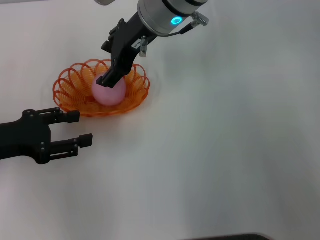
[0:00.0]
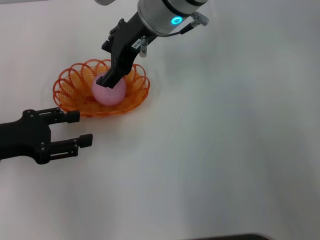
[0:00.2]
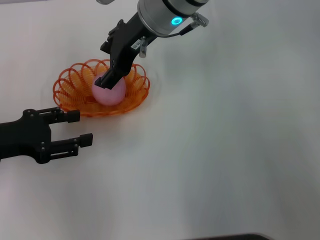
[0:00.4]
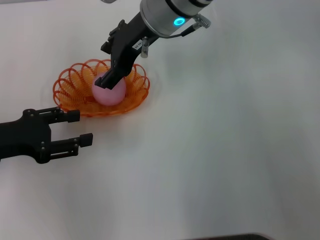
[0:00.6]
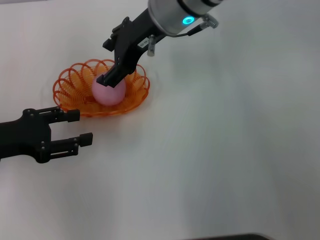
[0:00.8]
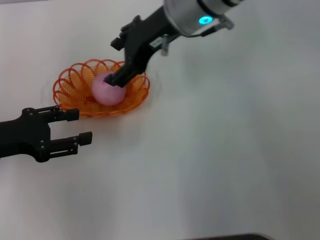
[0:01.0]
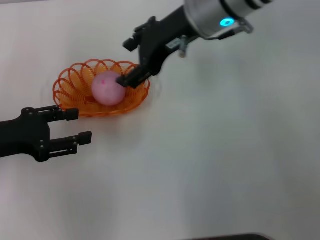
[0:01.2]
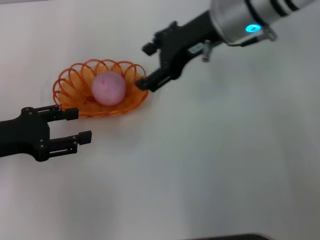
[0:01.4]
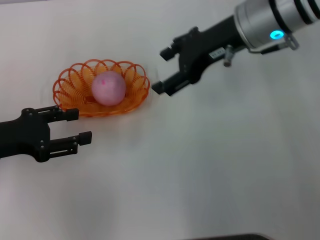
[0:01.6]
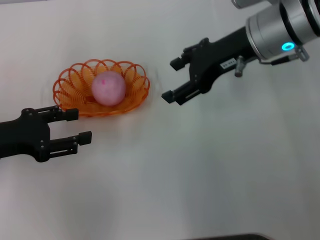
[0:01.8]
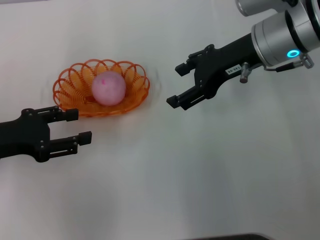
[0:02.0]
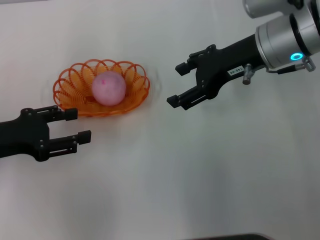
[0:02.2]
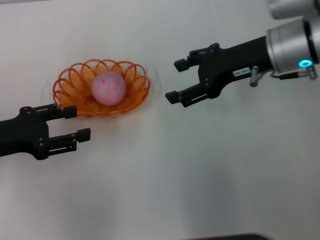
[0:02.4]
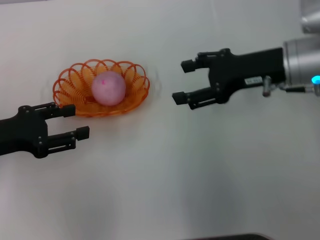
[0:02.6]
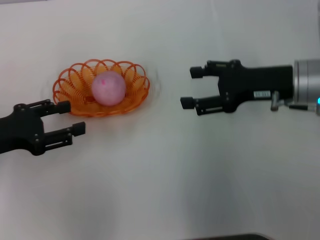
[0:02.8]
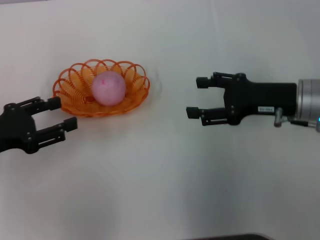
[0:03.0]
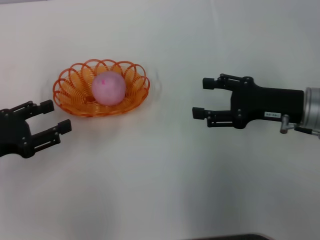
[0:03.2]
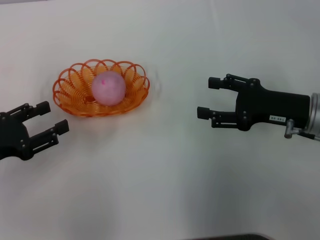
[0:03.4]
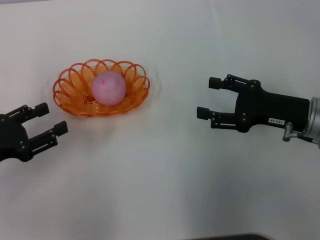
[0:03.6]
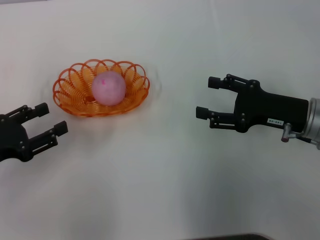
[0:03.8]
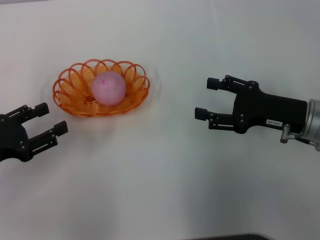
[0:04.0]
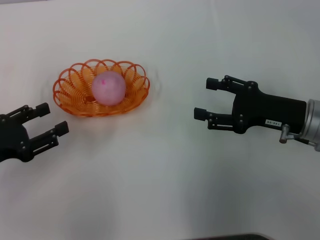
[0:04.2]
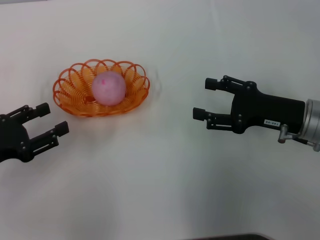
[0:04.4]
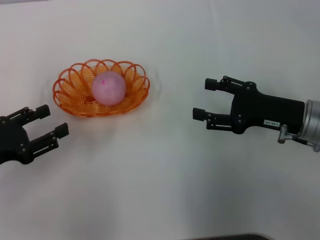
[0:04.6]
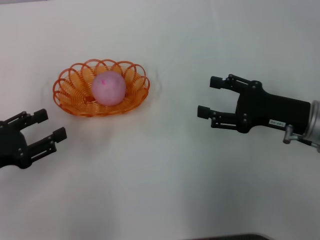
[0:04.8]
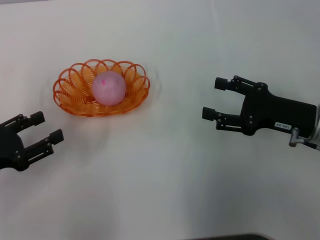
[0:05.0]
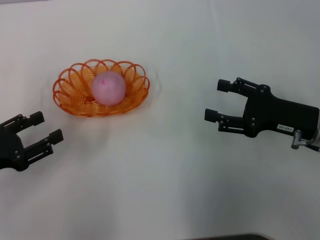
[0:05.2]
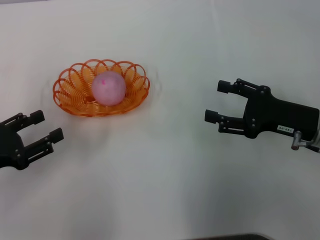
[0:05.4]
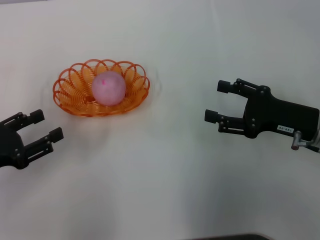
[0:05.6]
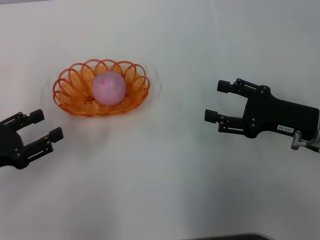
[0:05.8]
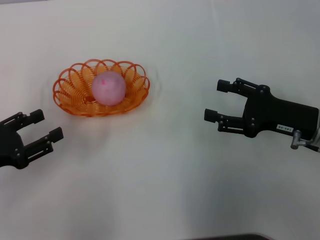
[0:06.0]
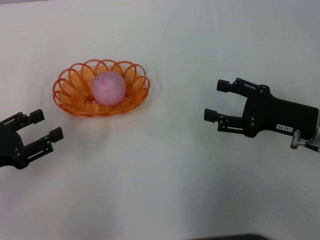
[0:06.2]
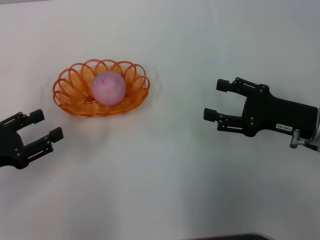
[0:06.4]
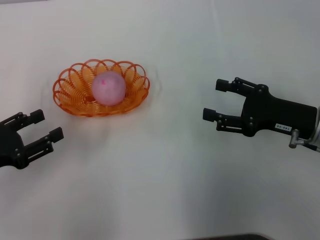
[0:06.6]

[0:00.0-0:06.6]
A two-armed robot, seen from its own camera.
0:00.0 to 0:01.6: The right gripper shifts roughly 10 cm to the right.
0:01.6 to 0:03.2: The right gripper is displaced downward, to the right and backward by approximately 20 cm.
0:03.2 to 0:05.0: The grippers move only a little.
0:05.0 to 0:06.6: Both grippers stay put.
